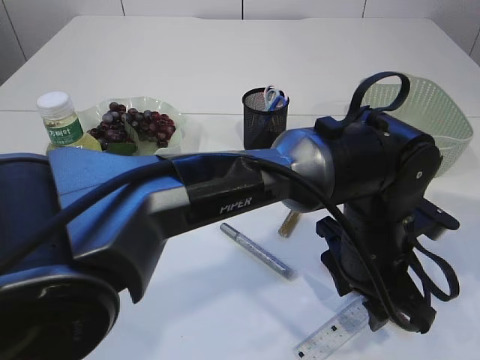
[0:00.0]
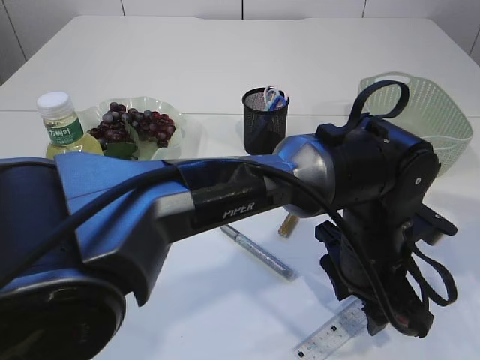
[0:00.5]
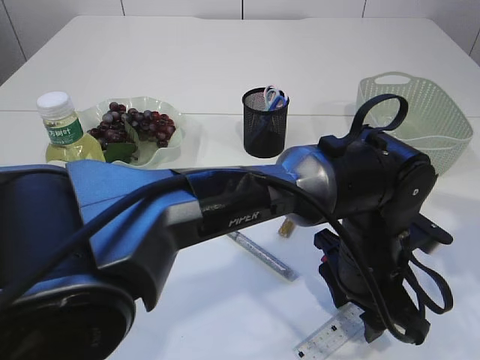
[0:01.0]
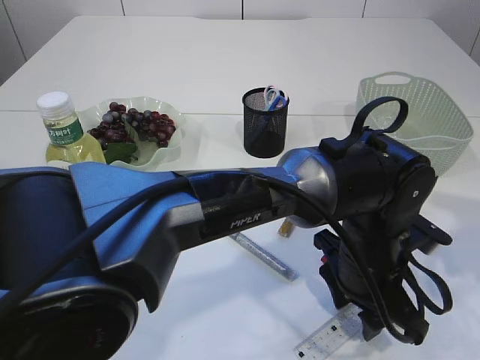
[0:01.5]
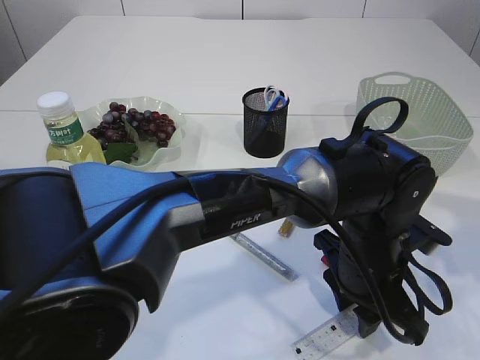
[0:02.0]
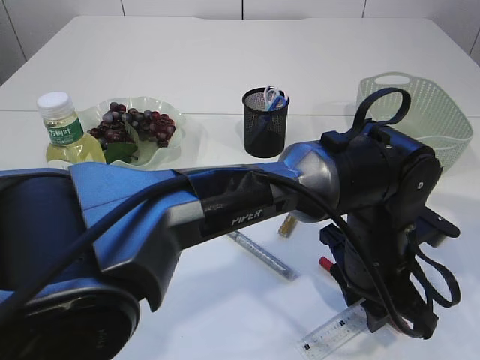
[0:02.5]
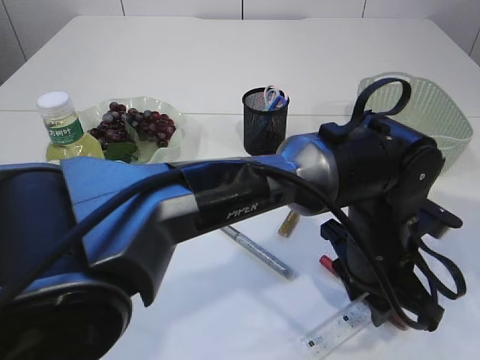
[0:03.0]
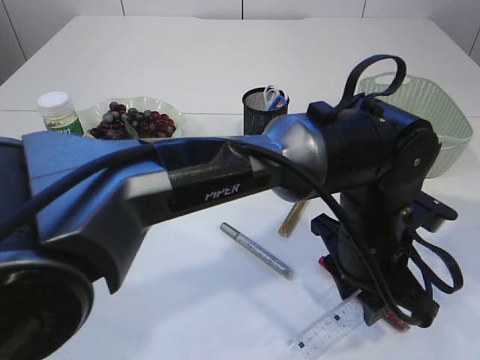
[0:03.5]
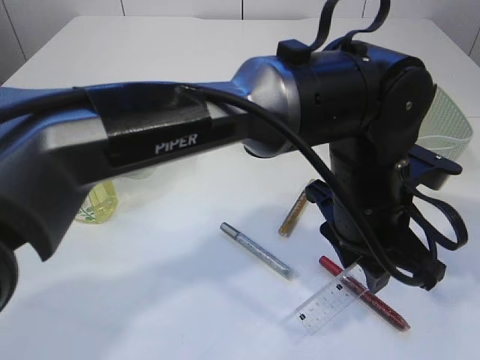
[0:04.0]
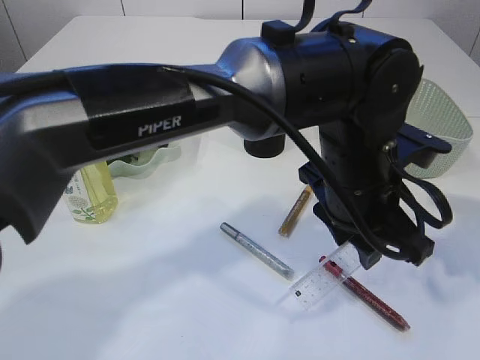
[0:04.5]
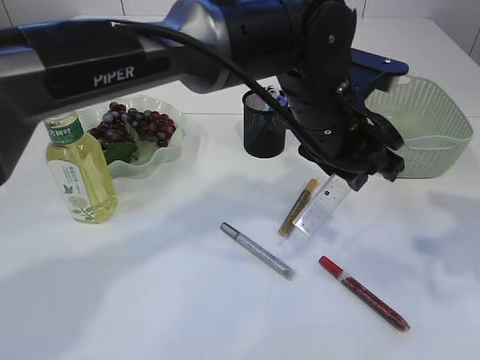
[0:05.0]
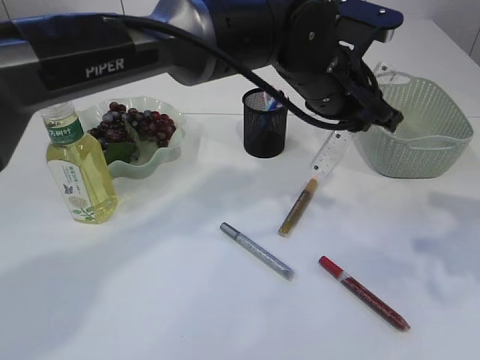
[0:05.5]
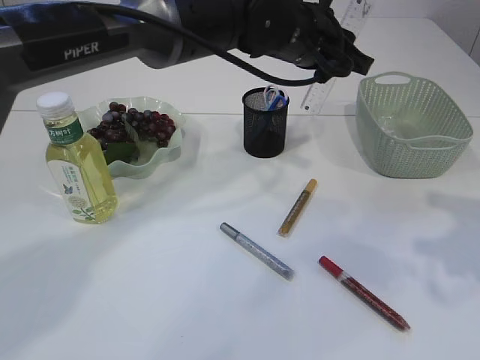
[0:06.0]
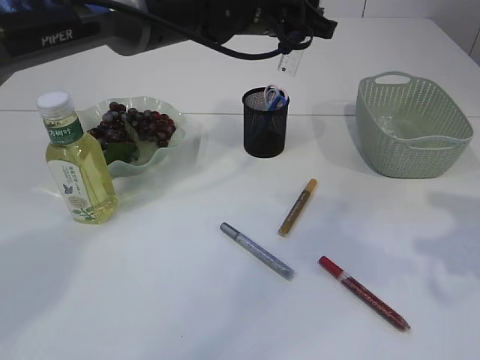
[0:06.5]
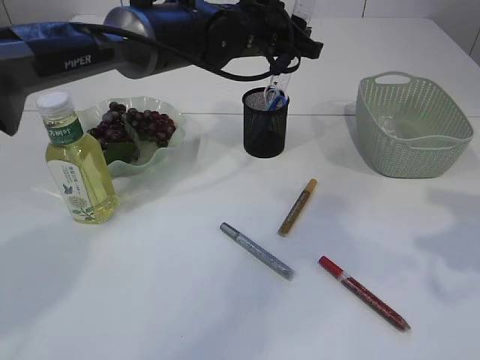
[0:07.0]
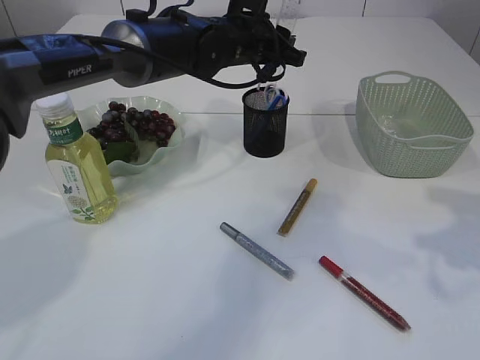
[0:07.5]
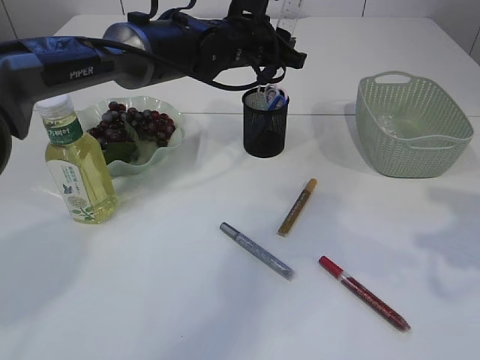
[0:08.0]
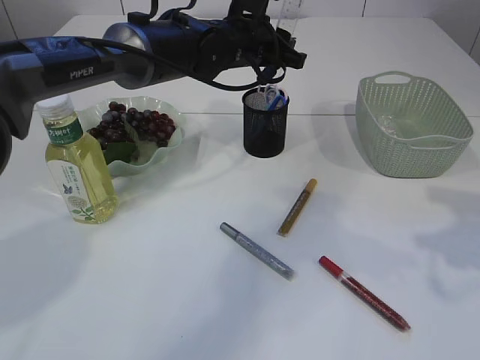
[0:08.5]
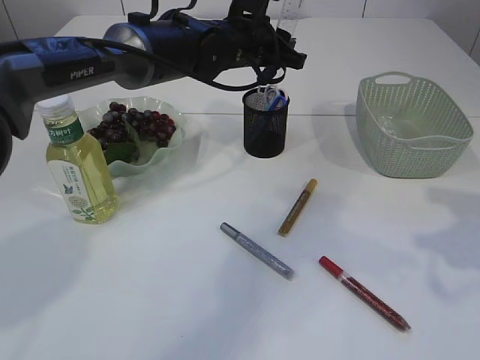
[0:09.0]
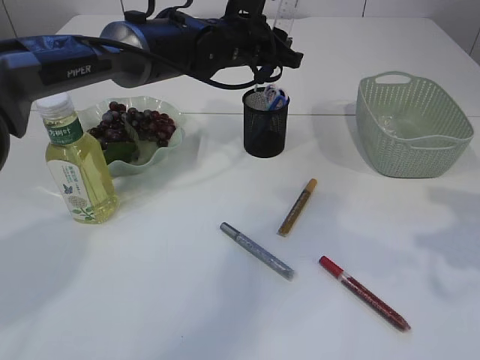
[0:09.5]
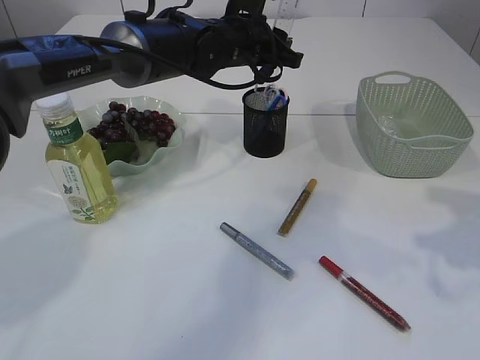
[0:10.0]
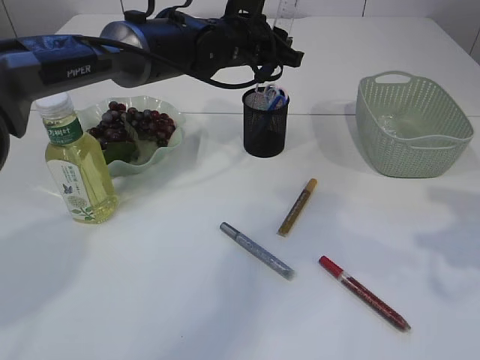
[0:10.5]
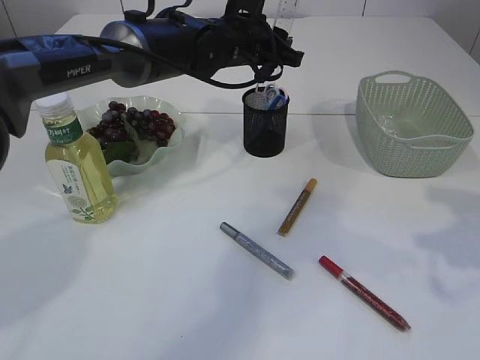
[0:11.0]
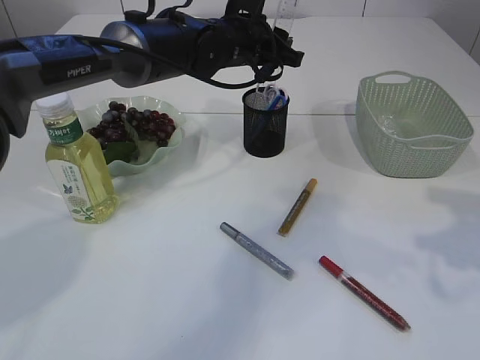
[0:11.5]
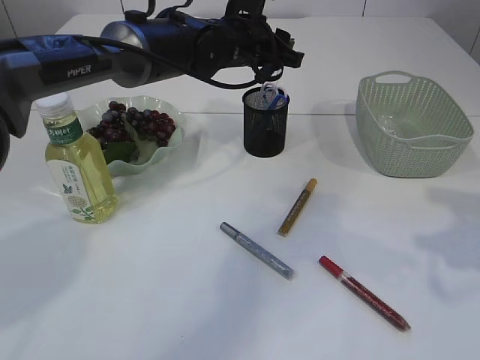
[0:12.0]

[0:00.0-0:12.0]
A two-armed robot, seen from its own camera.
Step, 0:00.0 to 0:03.0: pick up the ruler.
0:02.0 to 0:04.0: The left gripper is displaced upward by approximately 10 cm.
0:04.0 to 0:06.0: The left gripper heads forward and upward, covering some 15 cm.
0:06.0 to 0:08.0: The left gripper travels forward and to the left by about 10 cm.
0:08.0 to 0:12.0: Both grippers stay about where they are.

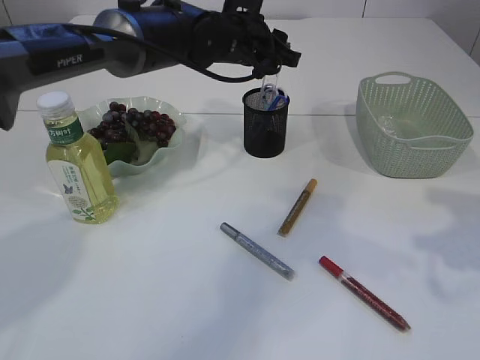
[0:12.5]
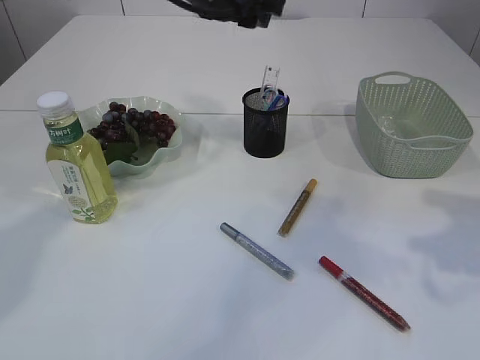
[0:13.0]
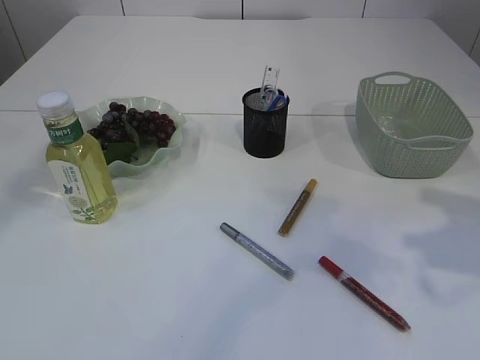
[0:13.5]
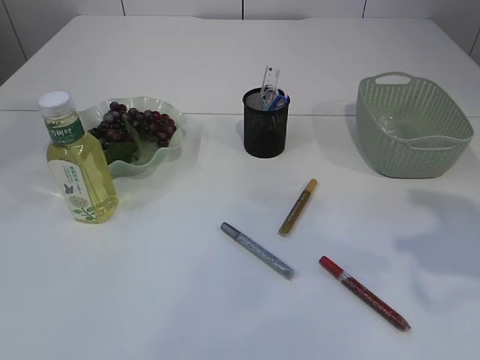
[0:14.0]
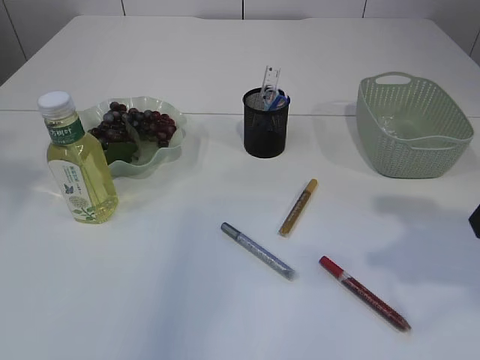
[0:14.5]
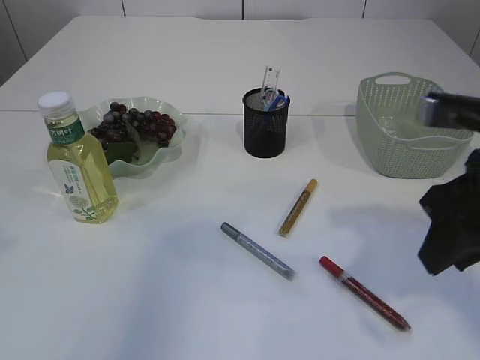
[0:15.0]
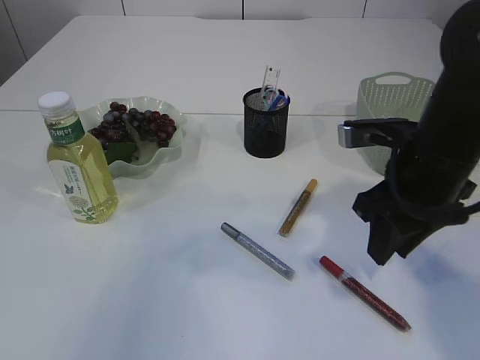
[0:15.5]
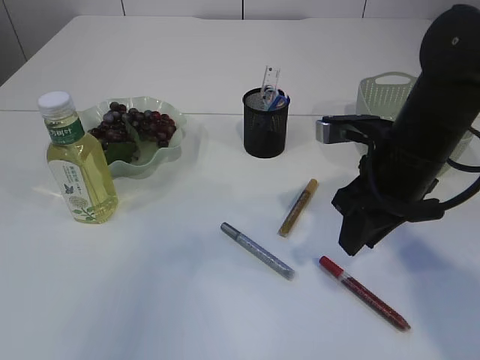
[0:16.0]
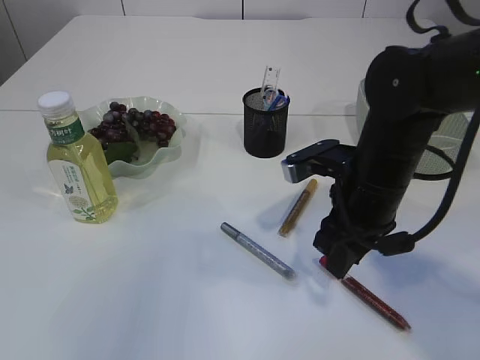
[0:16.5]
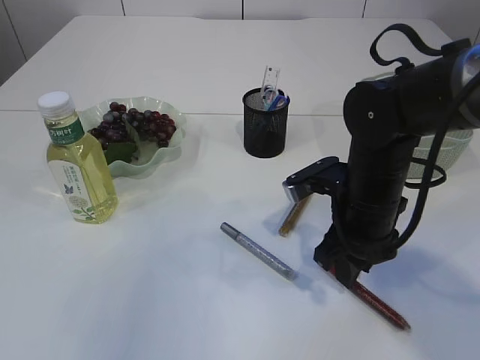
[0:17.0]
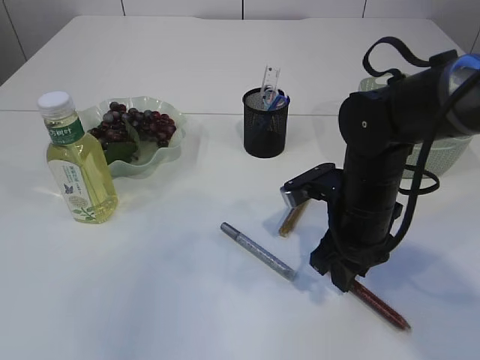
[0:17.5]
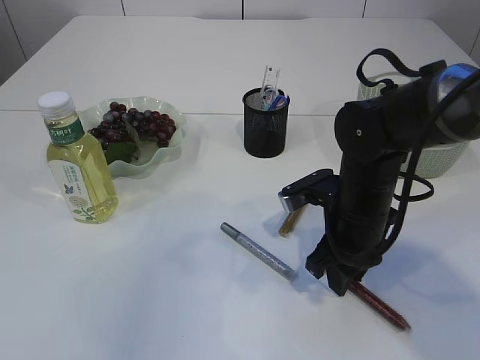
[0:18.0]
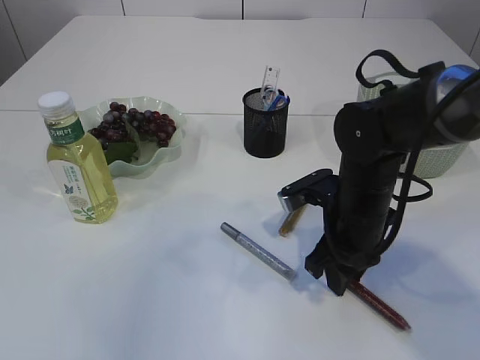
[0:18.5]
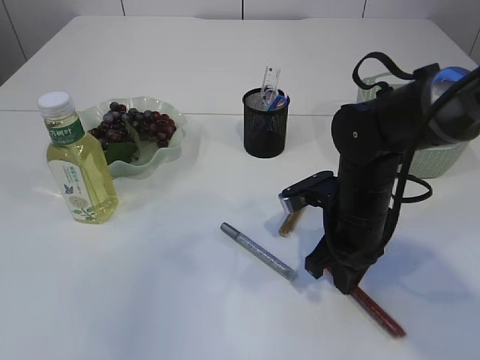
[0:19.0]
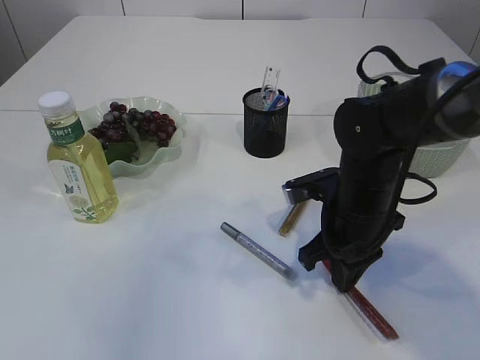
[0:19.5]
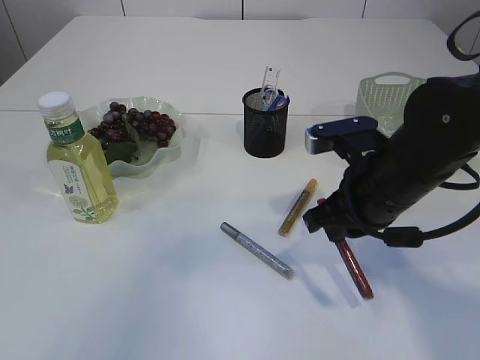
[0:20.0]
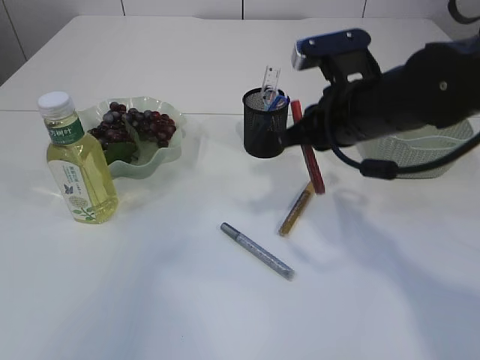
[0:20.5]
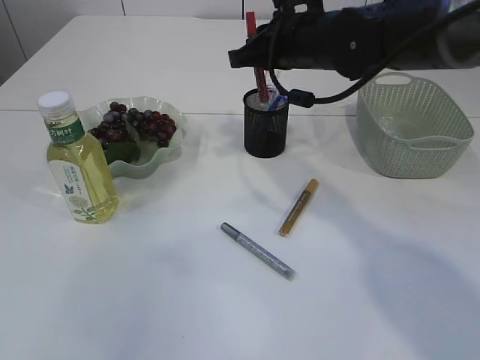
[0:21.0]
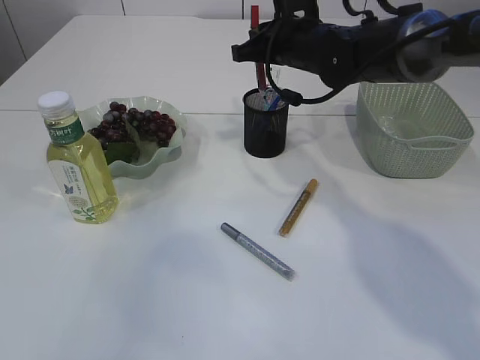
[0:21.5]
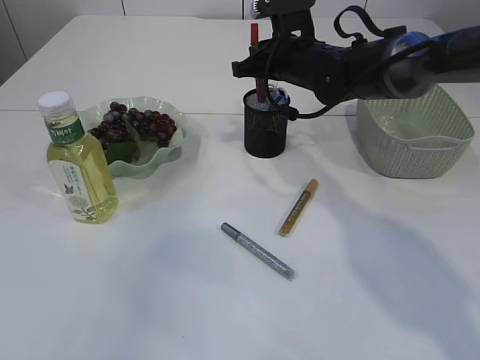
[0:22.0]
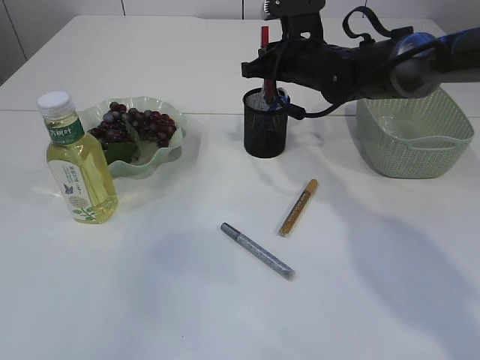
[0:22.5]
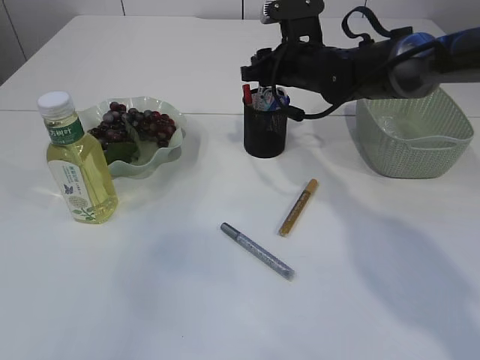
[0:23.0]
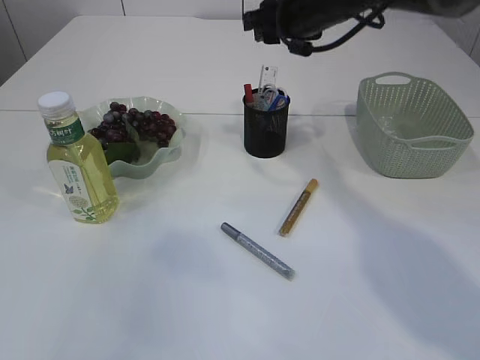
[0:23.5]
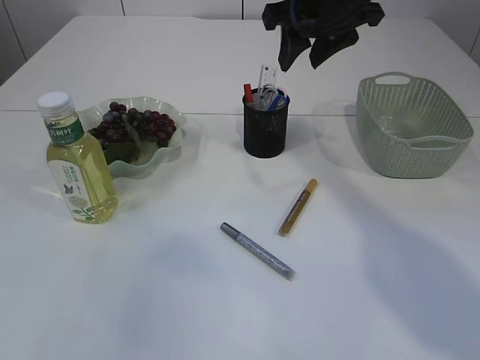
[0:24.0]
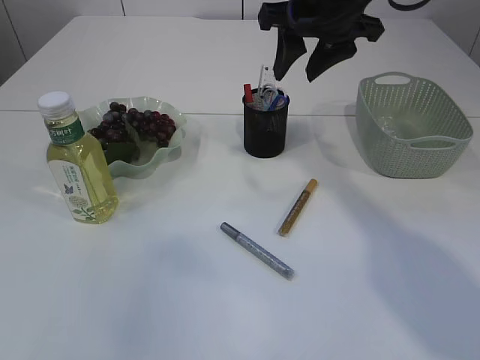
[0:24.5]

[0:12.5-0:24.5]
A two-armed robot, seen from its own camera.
Step, 0:13.0 to 0:20.0: pick up the red glue.
Step, 0:20.5 to 0:23.0: place the red glue into the pen holder.
0:12.5 to 0:14.5: The right gripper goes roughly 5 cm to the left. Meanwhile the left gripper is displaced to the left, upward and backward by roughly 40 cm.
0:14.5 to 0:16.5: The right gripper goes about 20 cm to the left, downward and forward, while the left gripper travels backward by approximately 10 cm.
0:16.5 to 0:18.5: The right gripper is displaced downward by about 5 cm.
0:18.5 to 0:20.5: The right gripper goes approximately 10 cm upward, and closes its fingers.
0:20.5 to 0:22.5: The right gripper travels forward by about 15 cm.
0:22.5 to 0:24.5: The right gripper is displaced upward and backward by approximately 15 cm, and opens up.

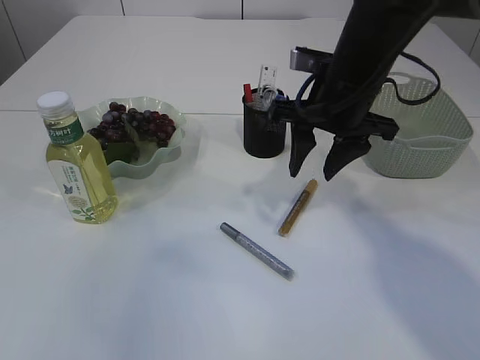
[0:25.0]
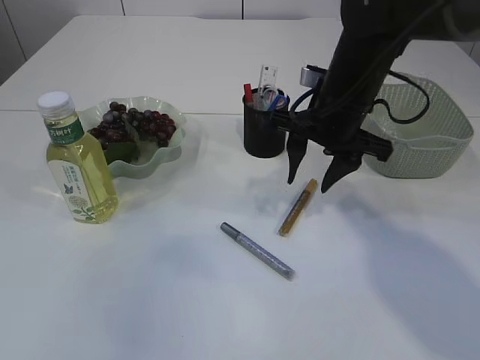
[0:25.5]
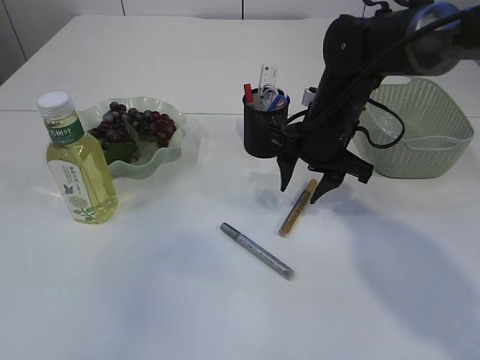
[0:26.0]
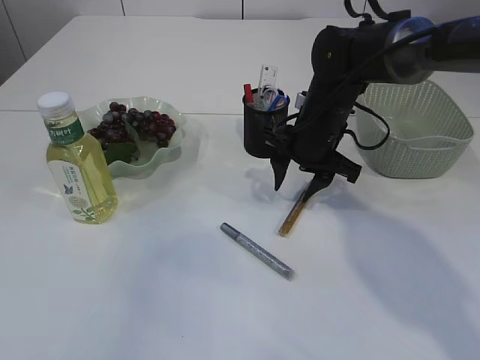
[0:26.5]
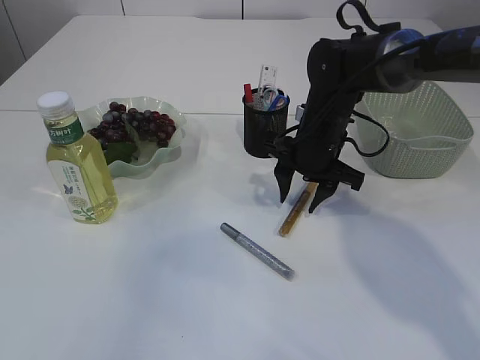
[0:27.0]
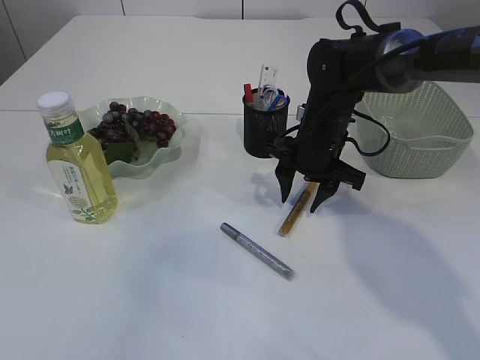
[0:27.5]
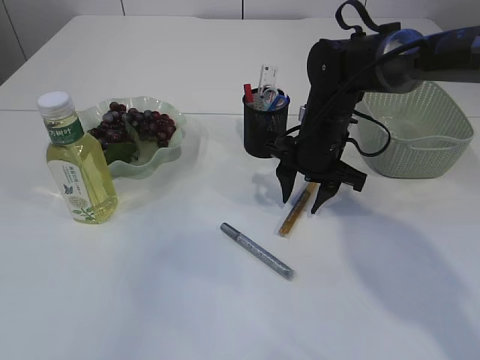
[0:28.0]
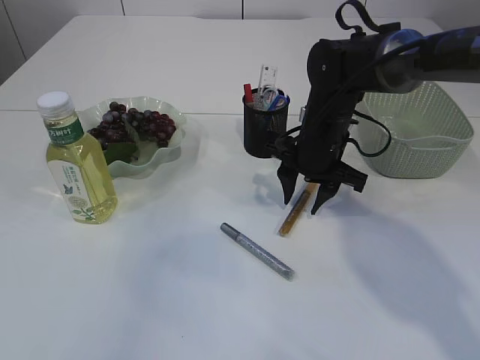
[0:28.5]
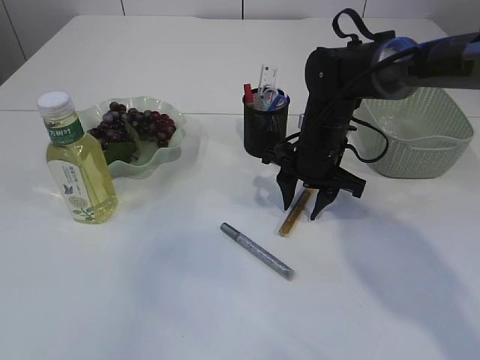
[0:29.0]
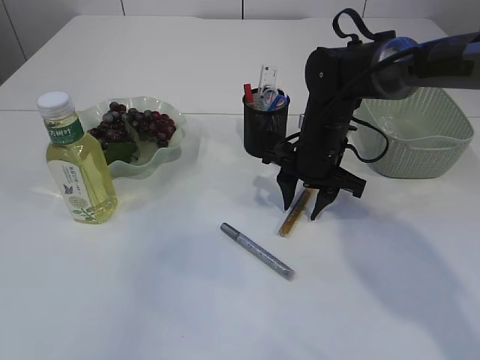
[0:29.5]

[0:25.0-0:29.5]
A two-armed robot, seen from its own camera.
0:25.0 to 0:27.0: The right gripper heads downward and forward, covering about 10 cm.
0:27.0 to 0:29.5: Both grippers stay put.
